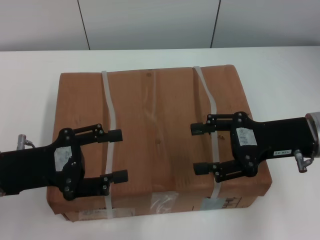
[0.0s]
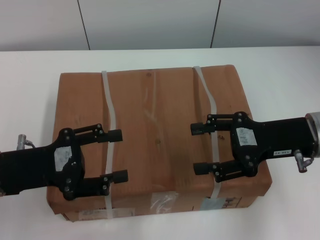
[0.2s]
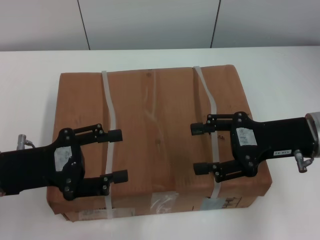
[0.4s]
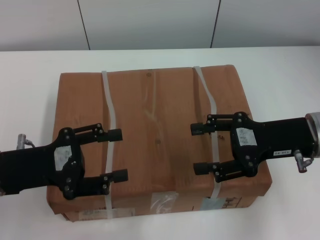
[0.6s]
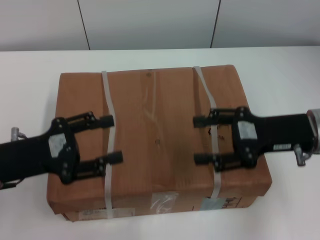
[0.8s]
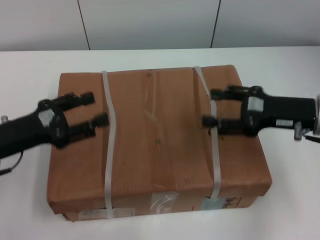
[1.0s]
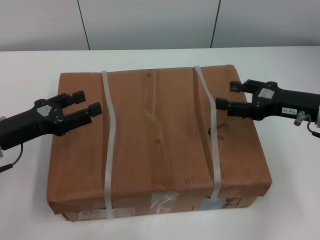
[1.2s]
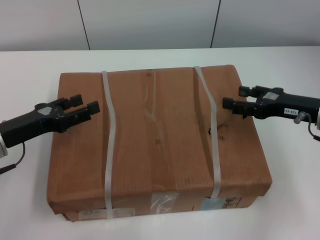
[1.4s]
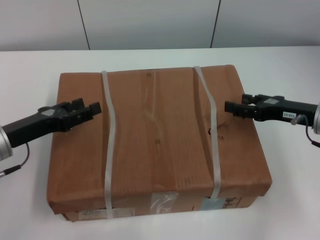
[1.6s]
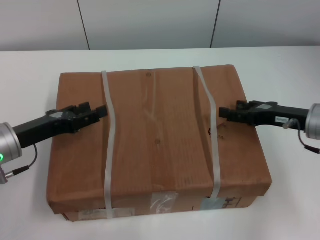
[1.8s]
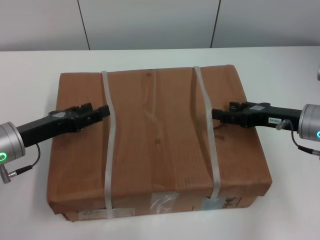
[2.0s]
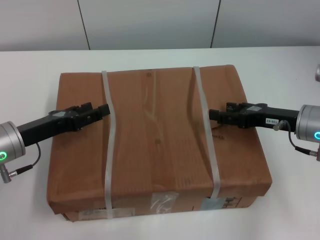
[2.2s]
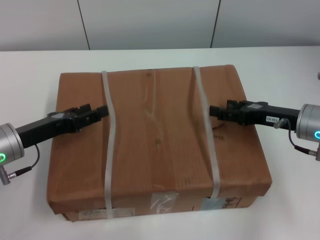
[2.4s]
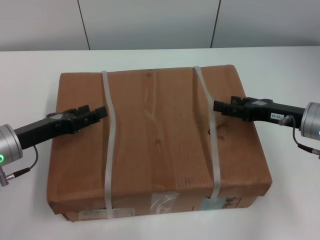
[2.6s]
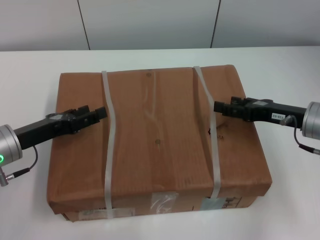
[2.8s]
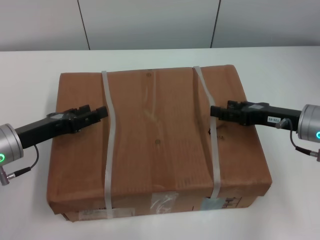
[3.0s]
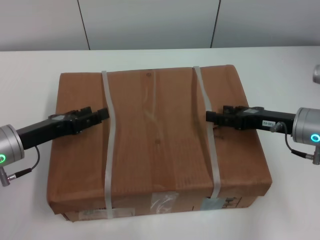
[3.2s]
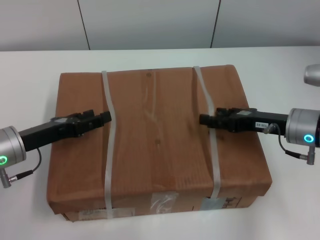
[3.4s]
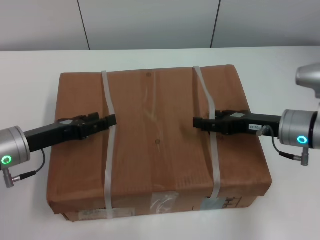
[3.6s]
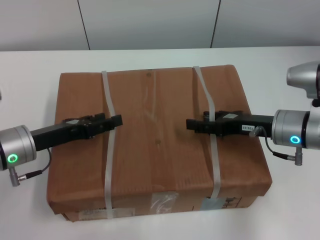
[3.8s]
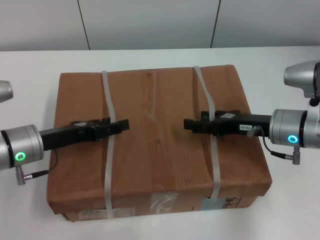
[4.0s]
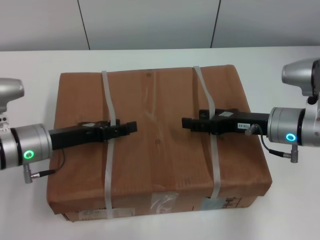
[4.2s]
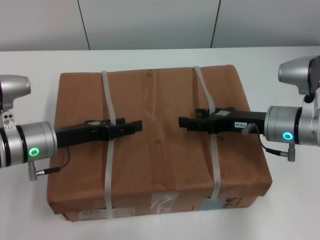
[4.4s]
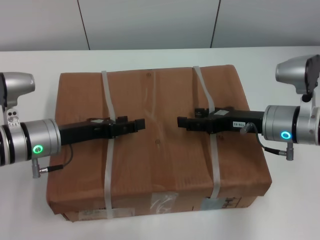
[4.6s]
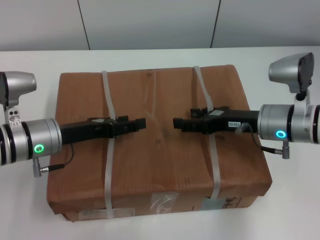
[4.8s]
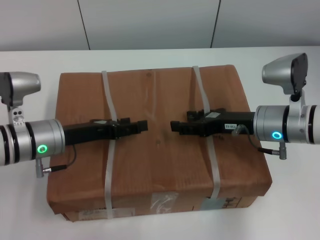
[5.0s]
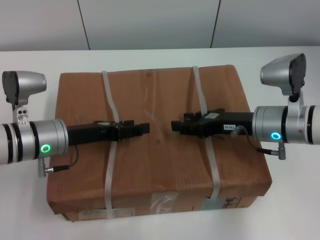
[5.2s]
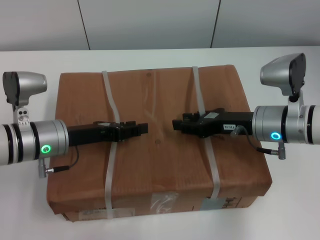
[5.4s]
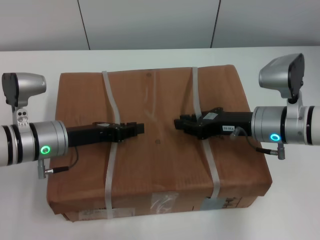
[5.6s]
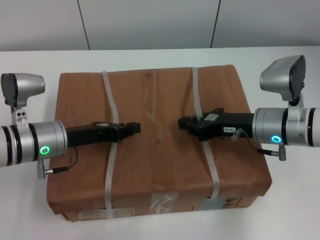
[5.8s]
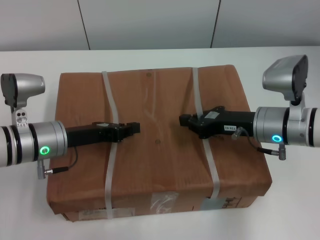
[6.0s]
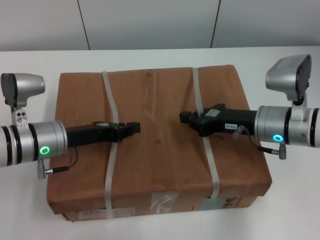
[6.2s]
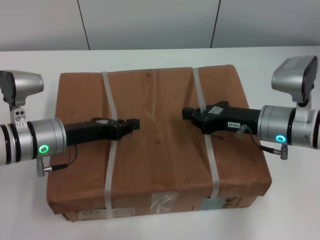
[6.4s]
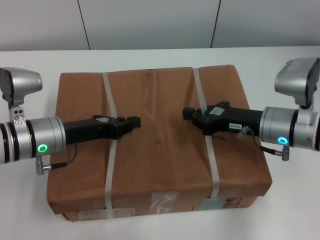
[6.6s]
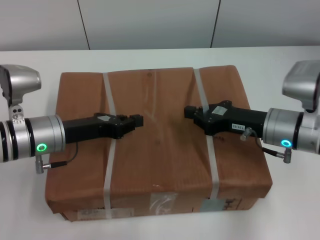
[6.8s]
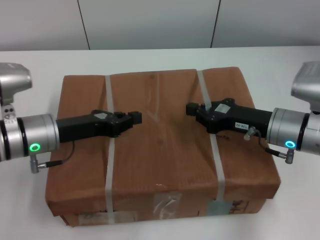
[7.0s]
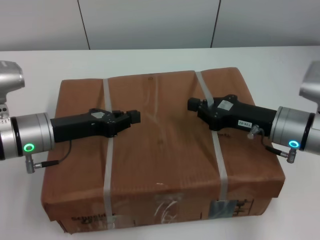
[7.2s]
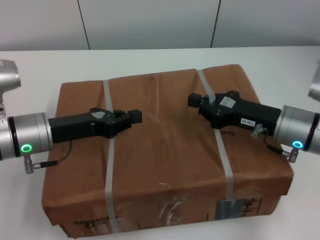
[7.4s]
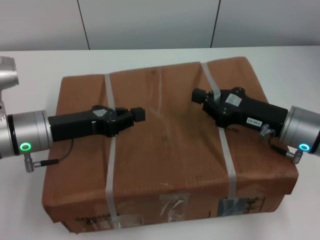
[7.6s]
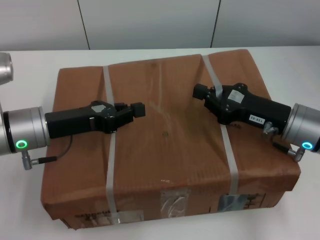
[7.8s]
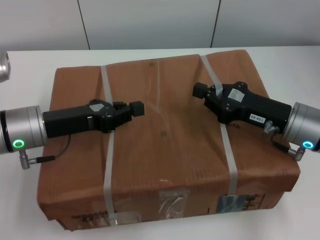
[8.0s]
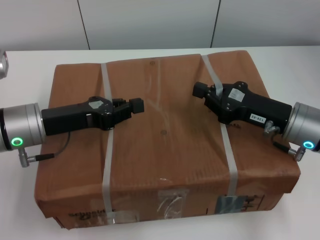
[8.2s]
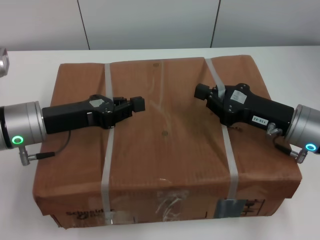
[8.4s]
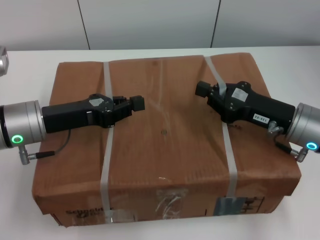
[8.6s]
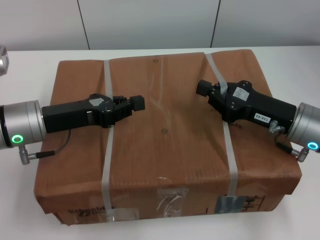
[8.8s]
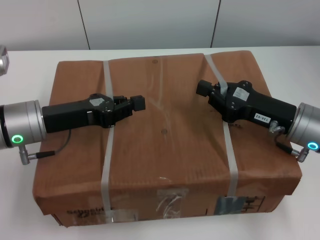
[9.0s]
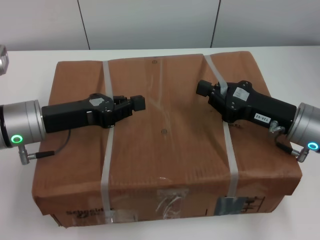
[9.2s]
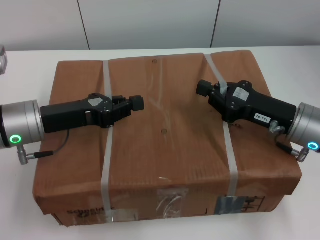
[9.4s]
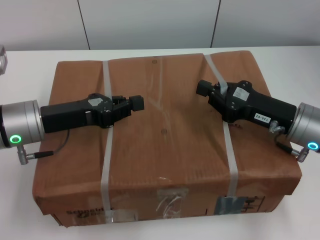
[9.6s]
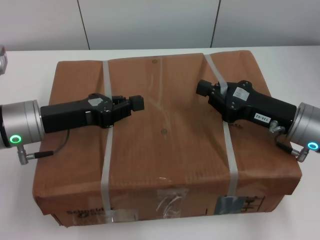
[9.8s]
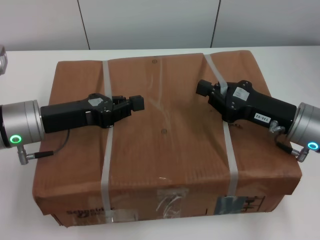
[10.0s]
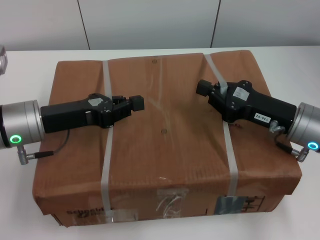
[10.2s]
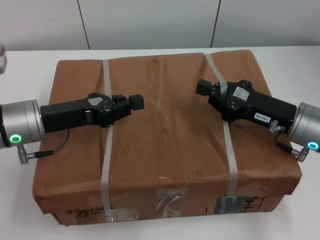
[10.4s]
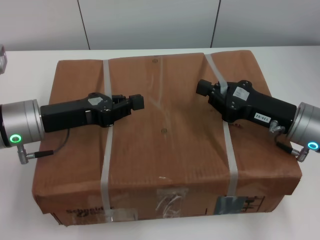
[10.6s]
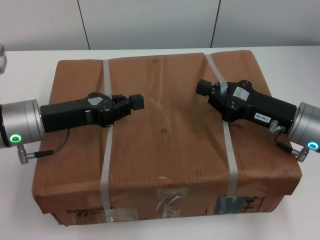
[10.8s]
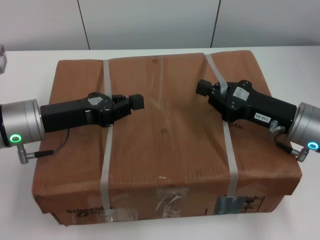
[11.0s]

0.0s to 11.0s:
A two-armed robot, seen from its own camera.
Task of the whole recording: pick up the box from the table with both arms.
Step, 0.6s to 5.8s: Grasp the bandage with left gripper.
Step, 0.6s to 5.8s: Grasp the bandage with right gripper.
Step, 6.0s to 8.2s: Lift the box with left gripper.
Step, 6.0s to 8.2s: Lift the box with right gripper.
0.0s to 1.6s: The left gripper moves some 5 cm, while the right gripper heads downward, covering some 5 cm.
1.6s to 3.2s: The grippers stay close to where they were, moving slightly.
3.2s to 4.8s: The left gripper shifts about 5 cm to the right, while the right gripper is displaced to the left by roughly 5 cm.
4.8s to 6.2s: The right gripper closes its fingers. The left gripper closes.
7.8s to 11.0s: Both grippers stay about where they are.
